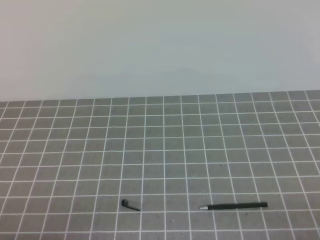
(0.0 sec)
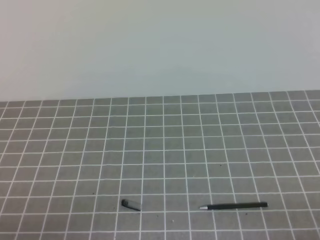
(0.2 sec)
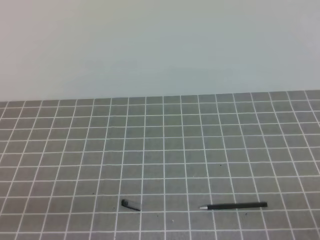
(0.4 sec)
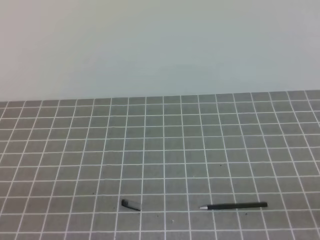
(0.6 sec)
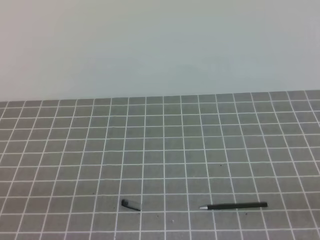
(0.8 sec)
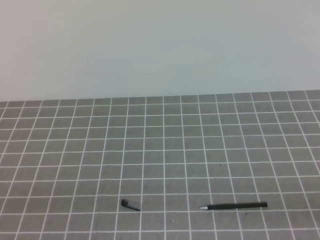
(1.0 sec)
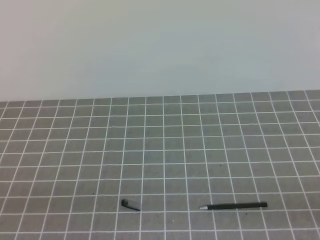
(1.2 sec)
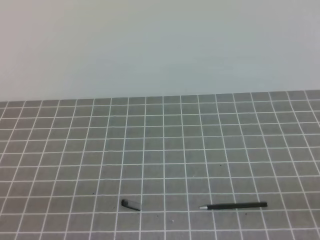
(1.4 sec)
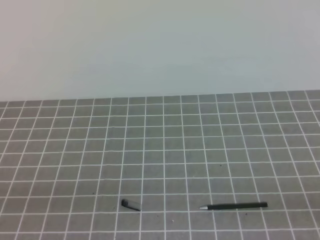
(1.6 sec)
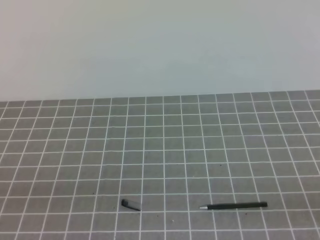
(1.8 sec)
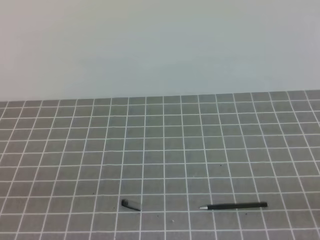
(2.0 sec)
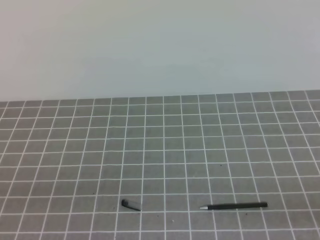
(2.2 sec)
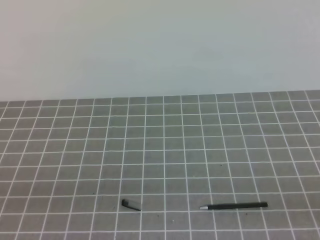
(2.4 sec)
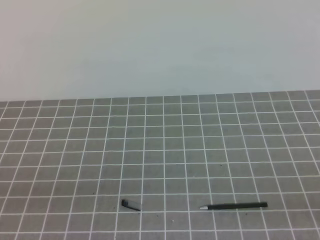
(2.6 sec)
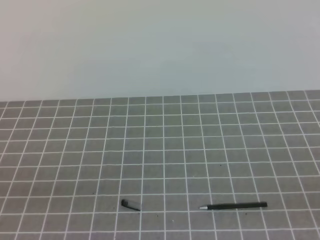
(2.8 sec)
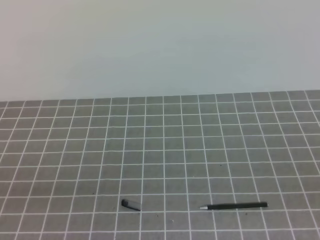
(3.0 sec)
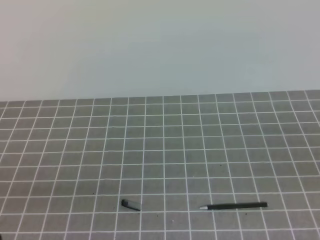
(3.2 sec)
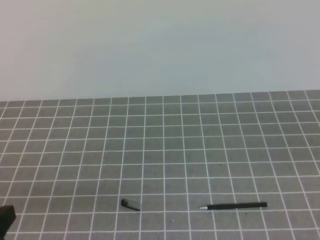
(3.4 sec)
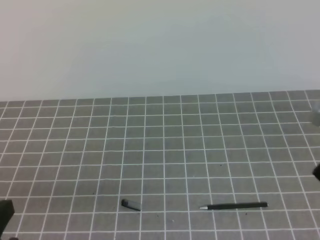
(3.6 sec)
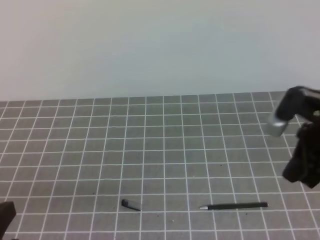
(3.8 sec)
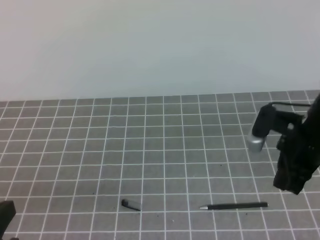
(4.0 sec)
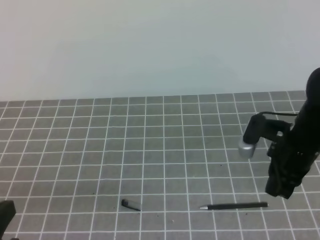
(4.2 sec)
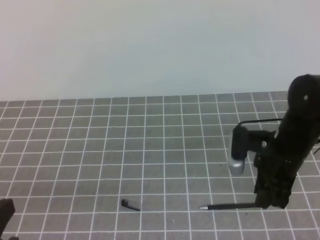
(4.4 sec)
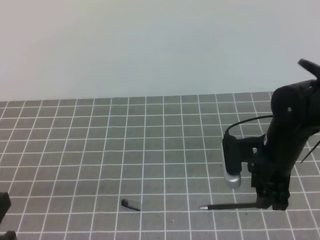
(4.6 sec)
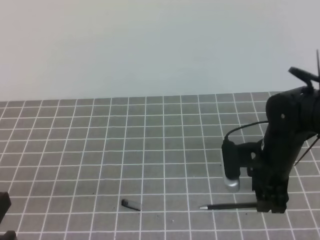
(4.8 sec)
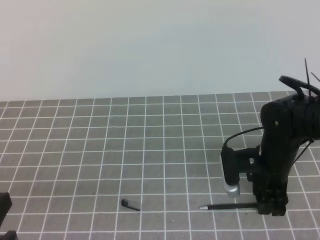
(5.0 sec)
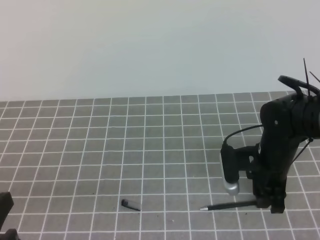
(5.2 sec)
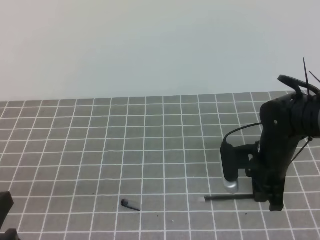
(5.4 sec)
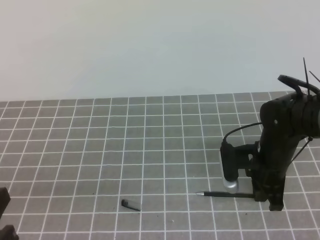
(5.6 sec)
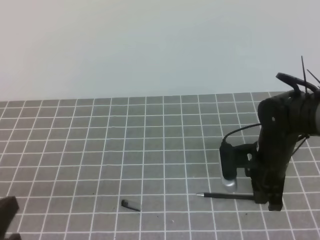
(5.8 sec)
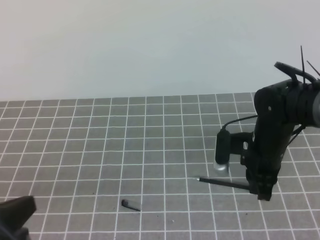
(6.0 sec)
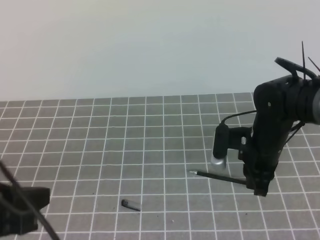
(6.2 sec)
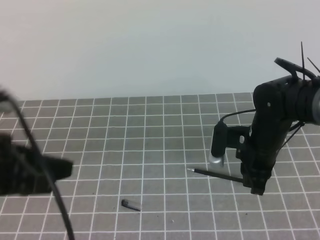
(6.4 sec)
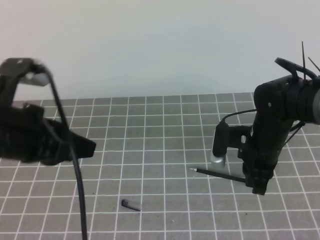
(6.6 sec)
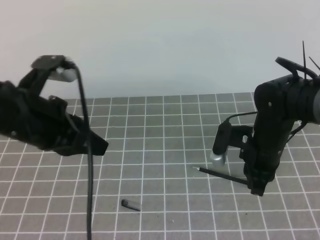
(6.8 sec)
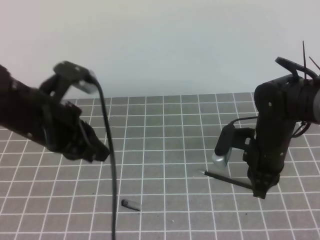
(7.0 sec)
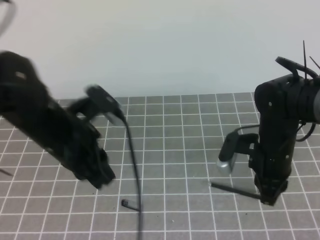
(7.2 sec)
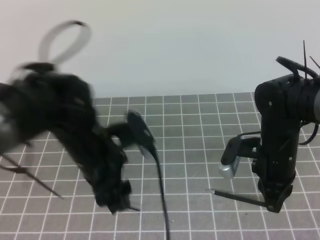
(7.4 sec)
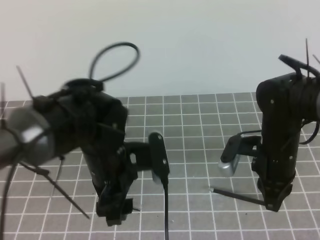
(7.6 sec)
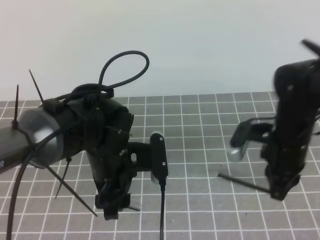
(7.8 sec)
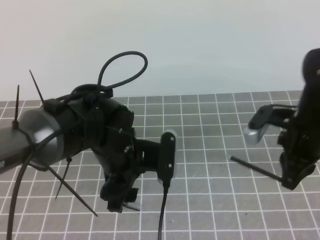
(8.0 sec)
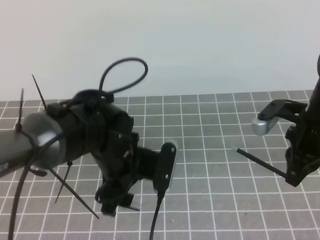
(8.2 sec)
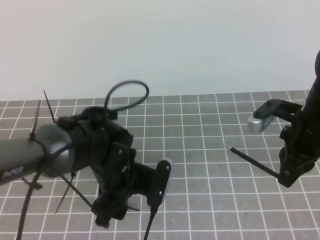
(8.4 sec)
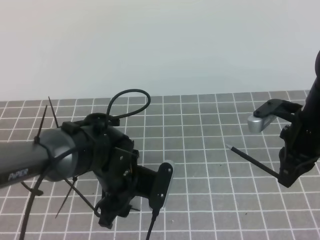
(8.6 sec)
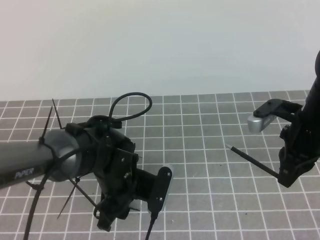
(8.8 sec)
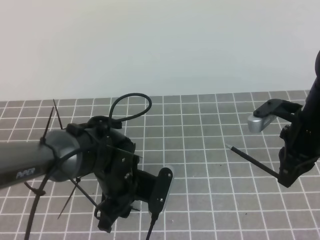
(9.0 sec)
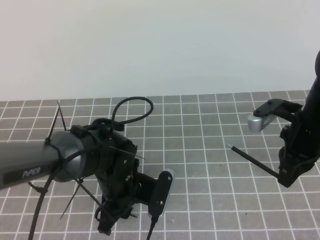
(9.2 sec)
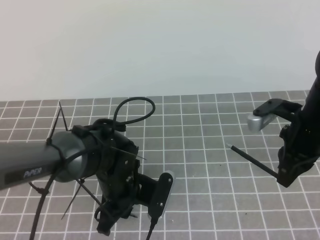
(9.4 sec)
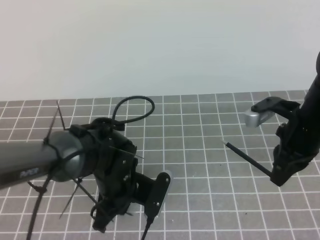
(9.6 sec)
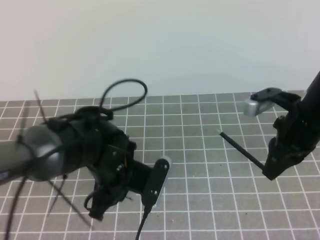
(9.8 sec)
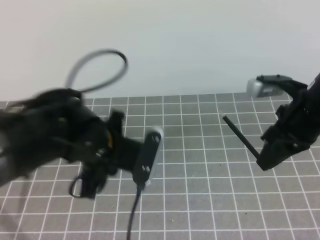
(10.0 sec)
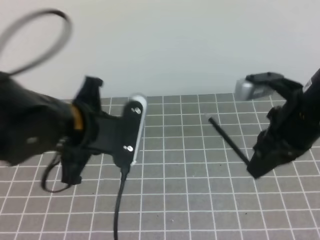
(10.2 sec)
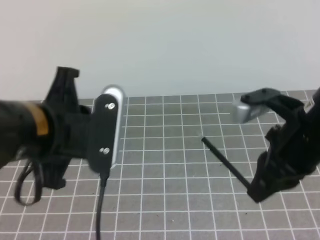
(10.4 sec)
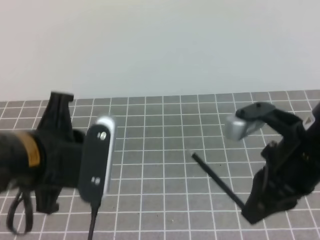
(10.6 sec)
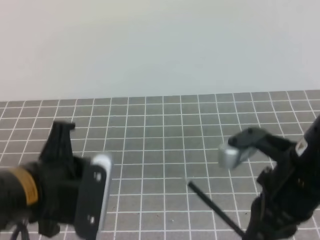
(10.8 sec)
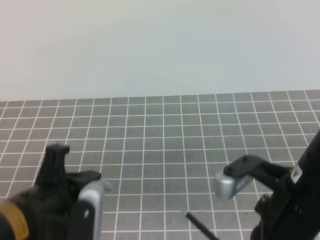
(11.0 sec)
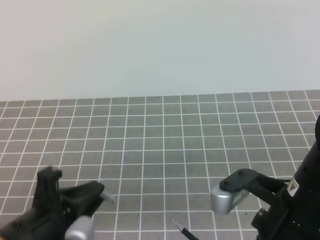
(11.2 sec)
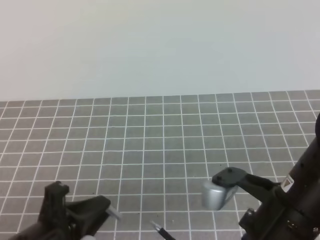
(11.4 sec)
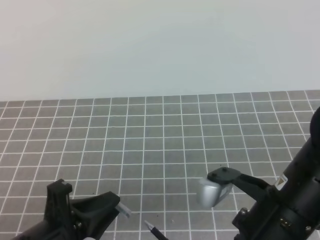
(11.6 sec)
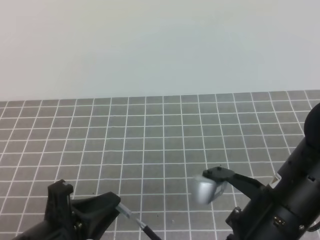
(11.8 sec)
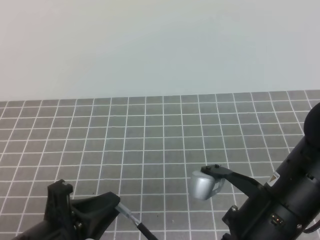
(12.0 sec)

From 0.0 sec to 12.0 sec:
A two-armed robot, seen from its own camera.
Task of the whole recording: on the grey tablecloth, hold the pen cap in one hand and the pen in the other, then cover the pen cap.
From 3.0 sec to 4.4 sec: The right gripper moves forward, to the left and downward, about 25 cm, and opens.
From 4.4 sec to 6.0 sec: The right gripper shifts by about 5 cm, and closes its fingers.
From 6.0 sec to 7.6 sec: The left gripper travels forward and to the right by some 20 cm, and opens.
From 7.6 sec to 9.0 sec: The left gripper is displaced downward by roughly 10 cm, and closes; the right gripper moves to the right, approximately 5 cm.
From 9.0 sec to 10.4 sec: The left gripper shifts about 20 cm upward and backward, and closes, while the right gripper travels backward, upward and to the left by approximately 15 cm.
From 10.4 sec to 12.0 sec: The right gripper moves backward and to the left, some 10 cm; the left gripper is displaced downward and backward by some 15 cm.

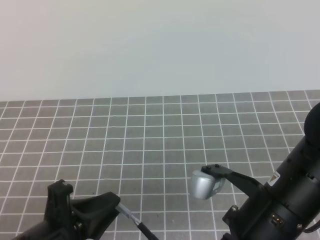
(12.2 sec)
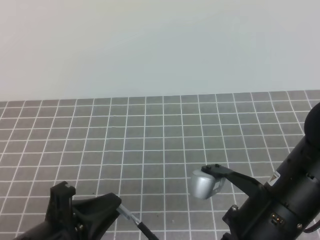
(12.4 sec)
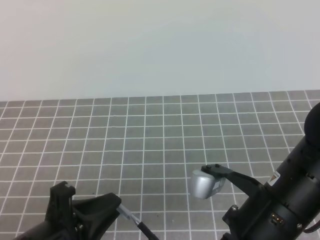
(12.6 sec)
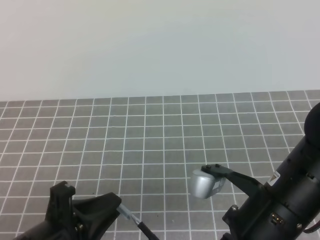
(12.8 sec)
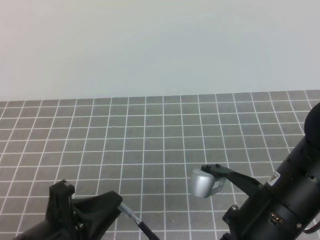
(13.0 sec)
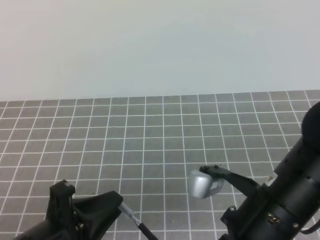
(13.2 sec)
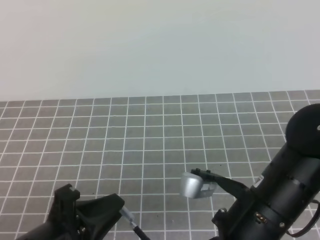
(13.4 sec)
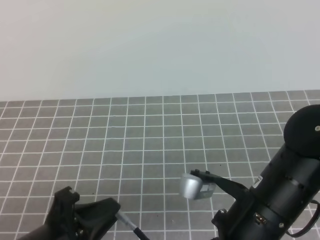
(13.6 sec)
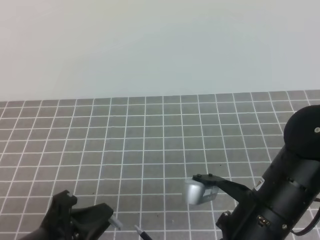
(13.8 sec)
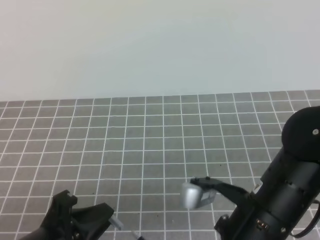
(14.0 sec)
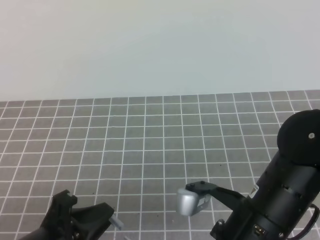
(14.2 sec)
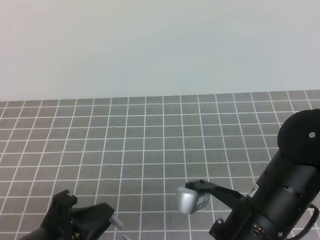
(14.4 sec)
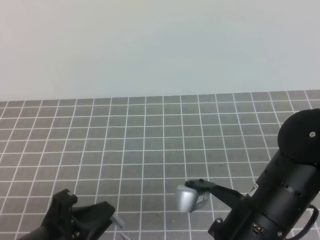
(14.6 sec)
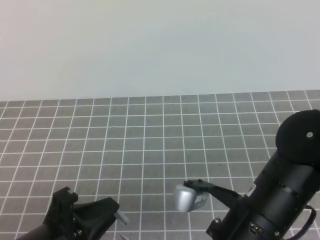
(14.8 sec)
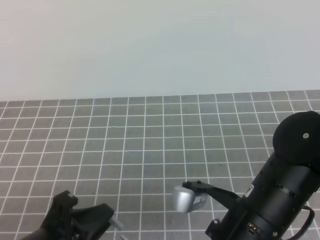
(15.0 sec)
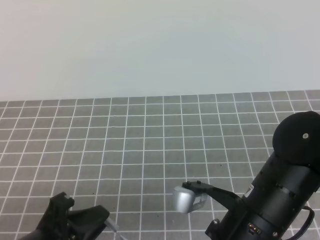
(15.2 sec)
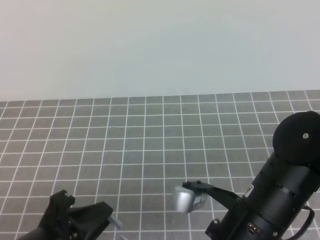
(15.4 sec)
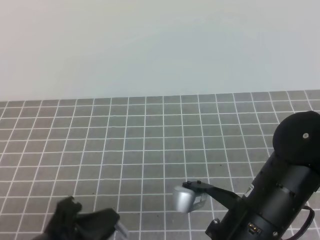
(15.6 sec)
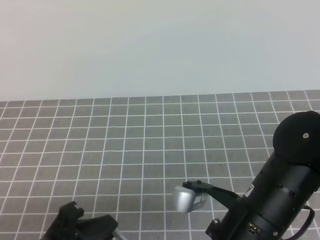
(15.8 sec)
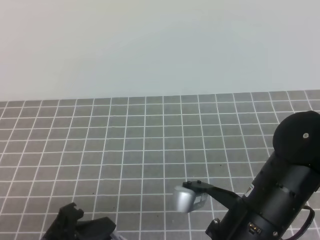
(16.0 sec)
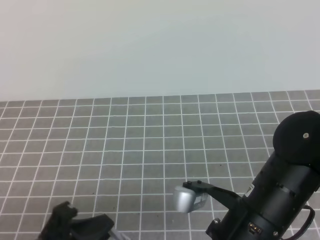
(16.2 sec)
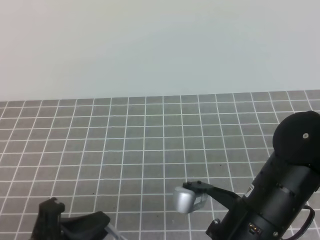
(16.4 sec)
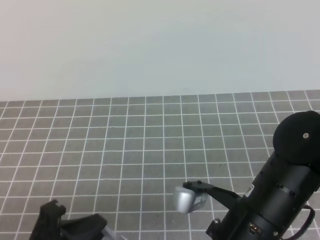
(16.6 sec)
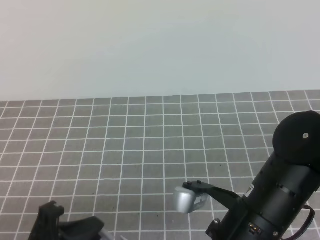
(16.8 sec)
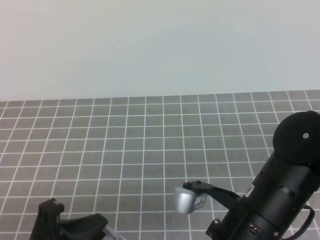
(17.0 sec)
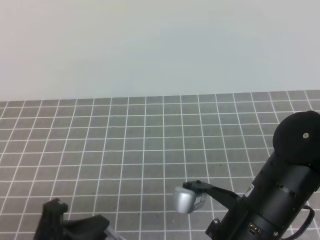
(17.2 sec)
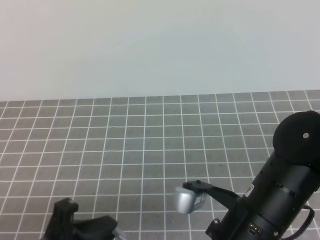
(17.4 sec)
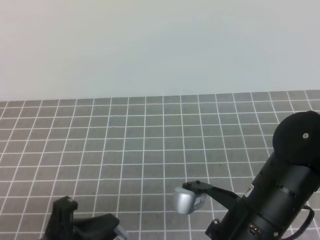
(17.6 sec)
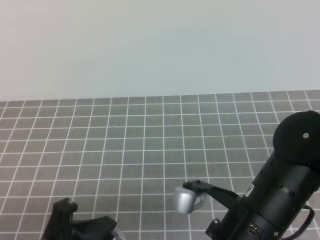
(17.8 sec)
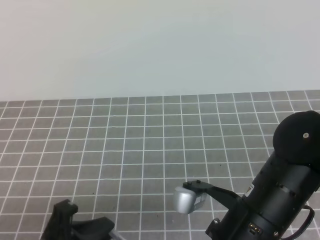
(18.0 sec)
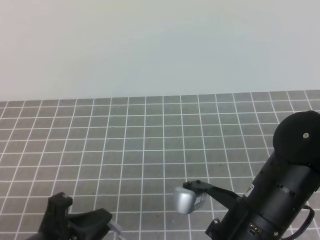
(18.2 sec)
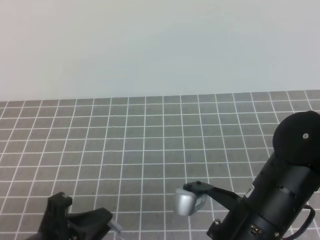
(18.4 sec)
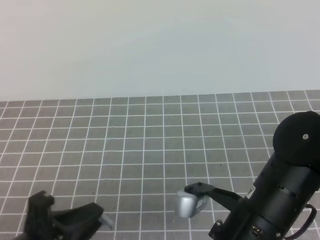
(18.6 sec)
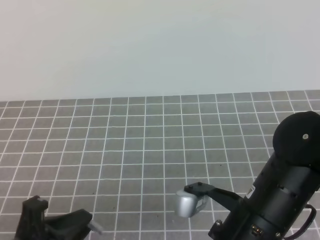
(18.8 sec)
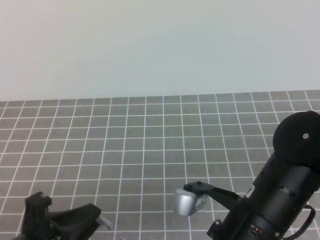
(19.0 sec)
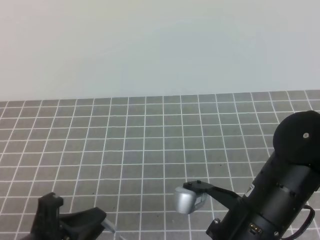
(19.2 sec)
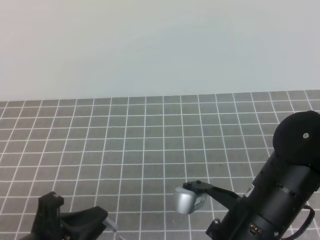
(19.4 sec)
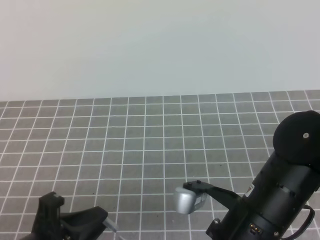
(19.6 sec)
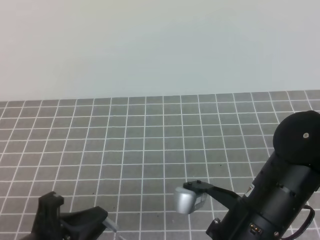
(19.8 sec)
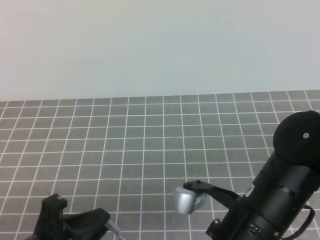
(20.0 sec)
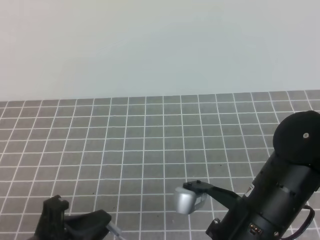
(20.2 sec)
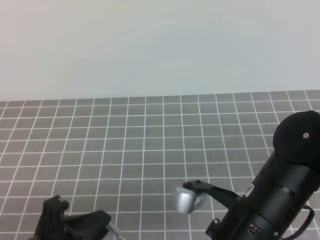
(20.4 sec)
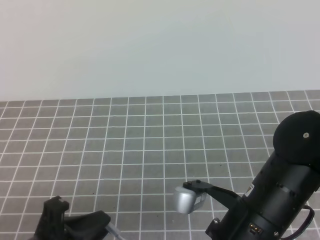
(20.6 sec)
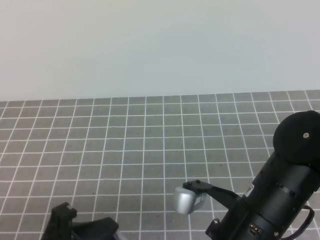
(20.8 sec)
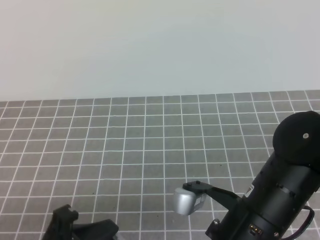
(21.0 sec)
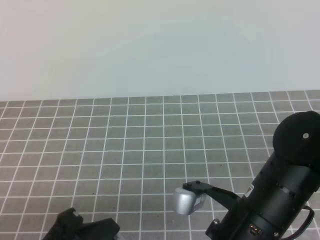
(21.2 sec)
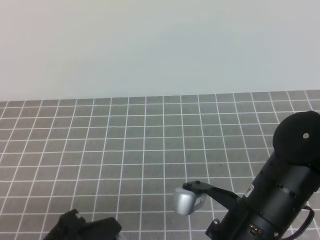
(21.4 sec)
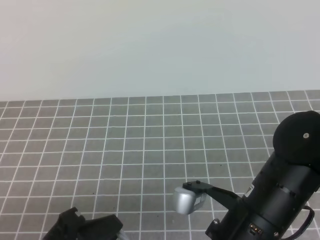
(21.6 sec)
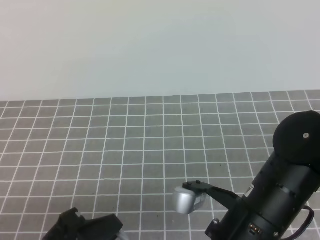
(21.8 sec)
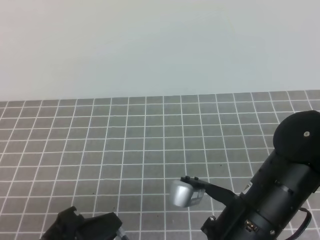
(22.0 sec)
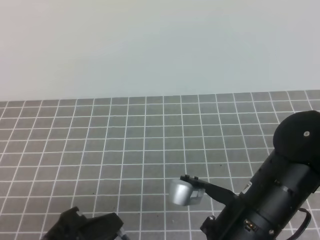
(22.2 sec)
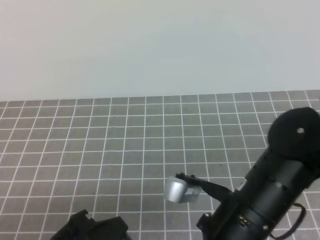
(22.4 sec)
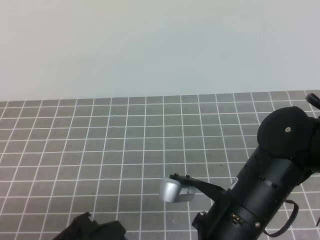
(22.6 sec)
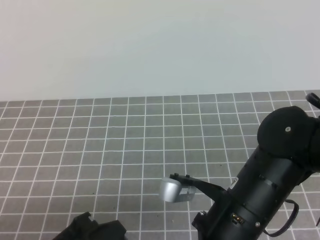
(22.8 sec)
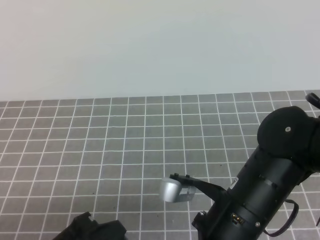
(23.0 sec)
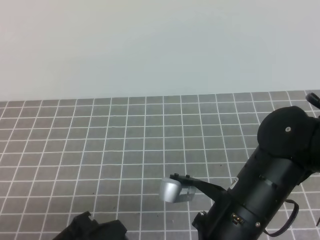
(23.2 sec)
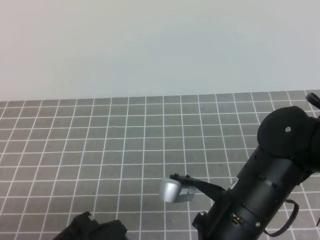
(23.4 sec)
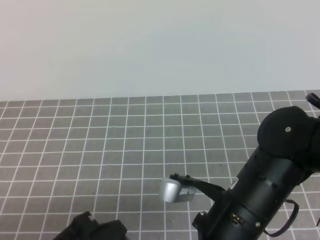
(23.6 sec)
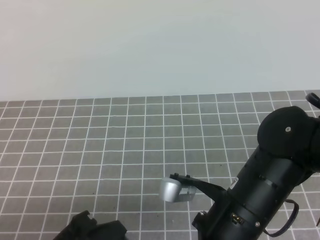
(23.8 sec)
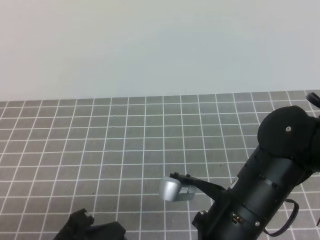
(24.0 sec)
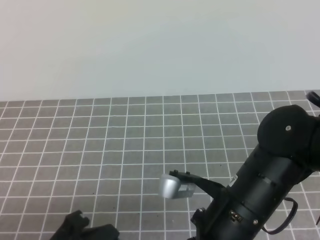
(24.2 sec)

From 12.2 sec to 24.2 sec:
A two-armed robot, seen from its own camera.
Task of the whole recording: on the grey tablecloth, hold the pen cap in one hand and the pen in the other, then cover the pen cap.
From 12.2 sec to 13.8 sec: The grippers stay close to where they were, moving slightly.
From 13.8 sec to 15.2 sec: Both grippers stay put.
From 15.2 sec to 16.6 sec: There are only small adjustments of the grippers.
From 16.6 sec to 18.2 sec: Both grippers stay put.
From 18.2 sec to 22.6 sec: The grippers stay close to where they were, moving slightly.
From 22.6 sec to 24.2 sec: The grippers stay close to where they were, moving slightly.
